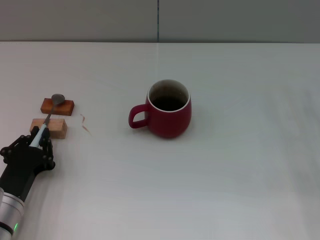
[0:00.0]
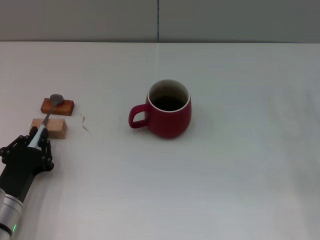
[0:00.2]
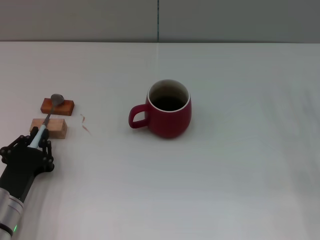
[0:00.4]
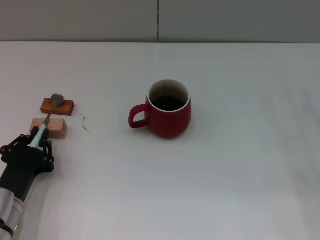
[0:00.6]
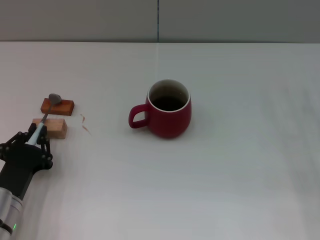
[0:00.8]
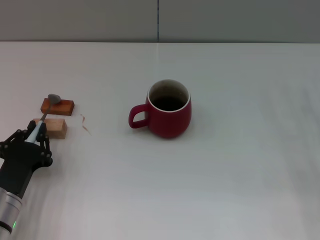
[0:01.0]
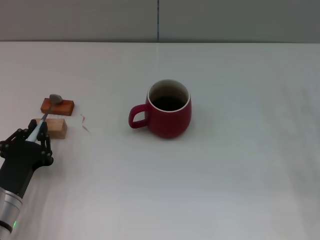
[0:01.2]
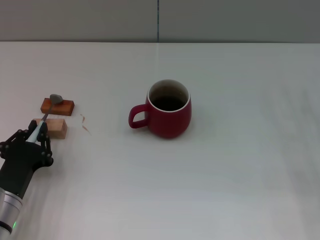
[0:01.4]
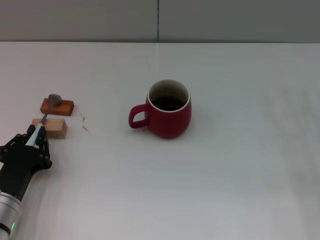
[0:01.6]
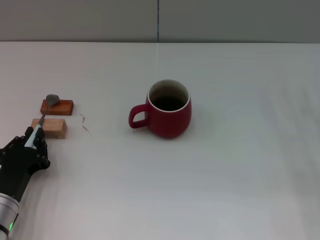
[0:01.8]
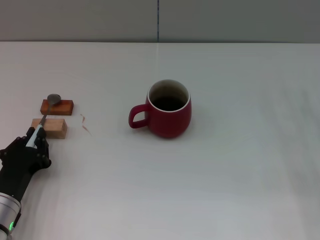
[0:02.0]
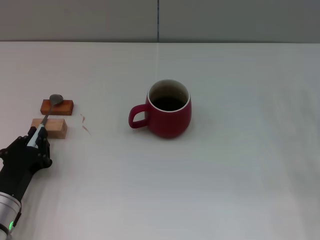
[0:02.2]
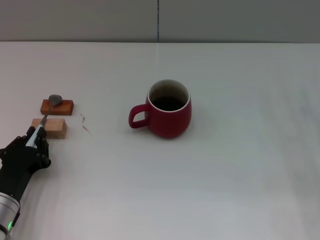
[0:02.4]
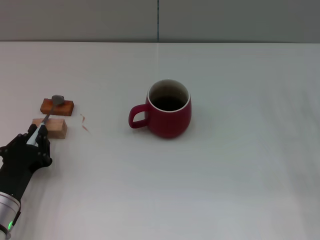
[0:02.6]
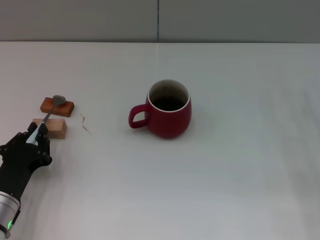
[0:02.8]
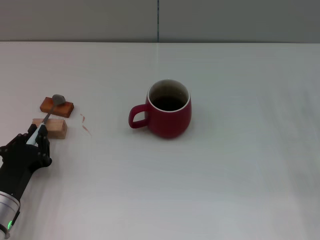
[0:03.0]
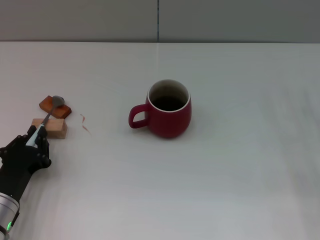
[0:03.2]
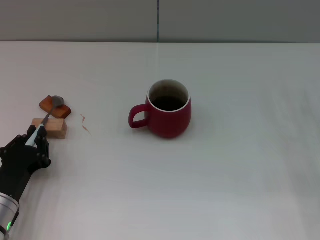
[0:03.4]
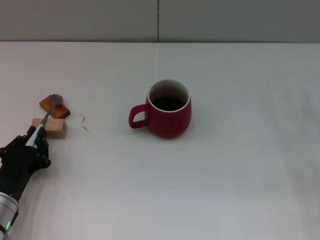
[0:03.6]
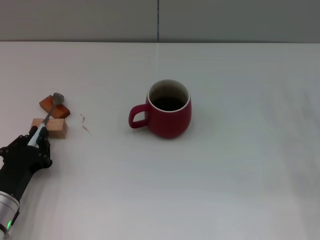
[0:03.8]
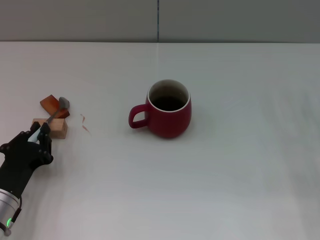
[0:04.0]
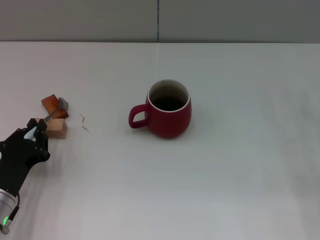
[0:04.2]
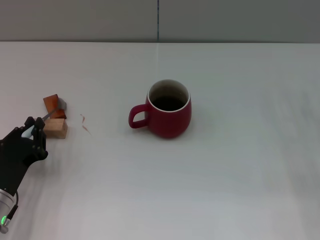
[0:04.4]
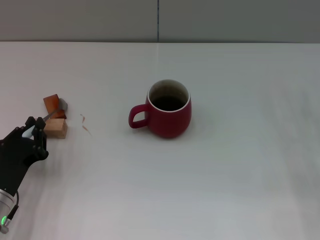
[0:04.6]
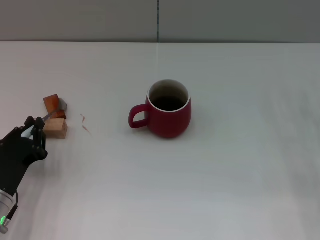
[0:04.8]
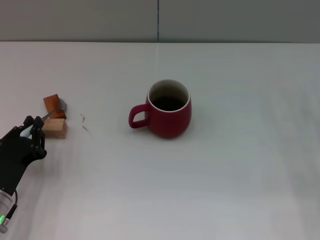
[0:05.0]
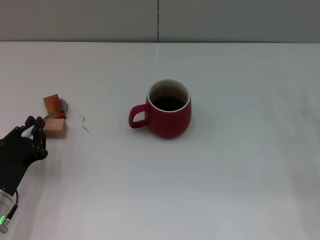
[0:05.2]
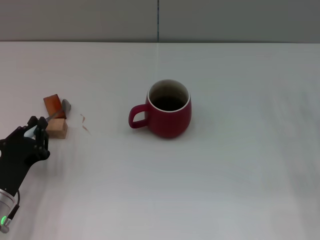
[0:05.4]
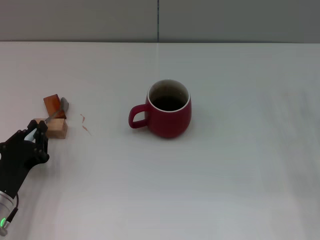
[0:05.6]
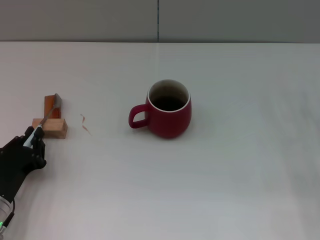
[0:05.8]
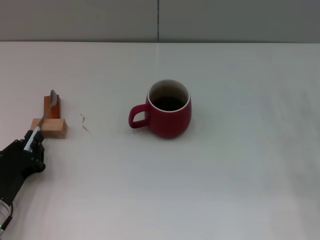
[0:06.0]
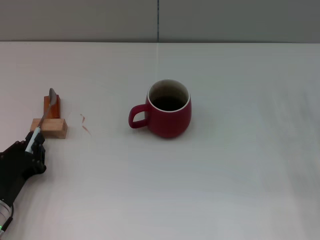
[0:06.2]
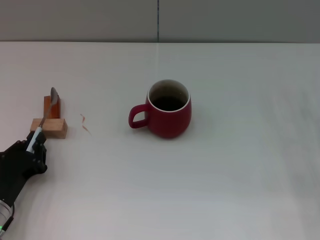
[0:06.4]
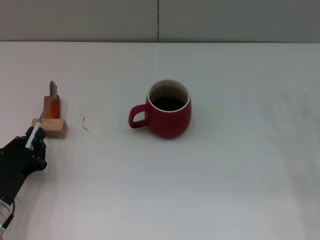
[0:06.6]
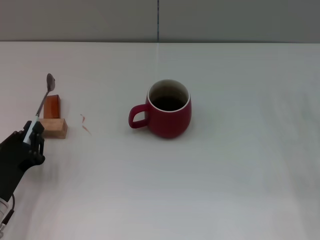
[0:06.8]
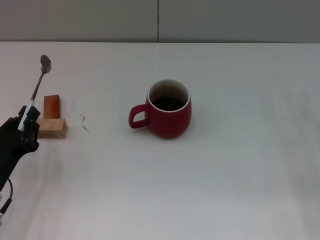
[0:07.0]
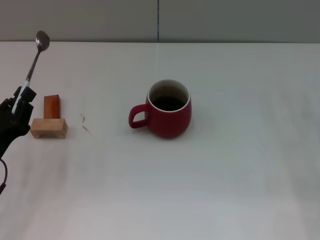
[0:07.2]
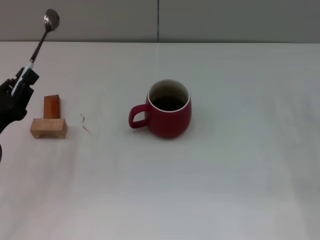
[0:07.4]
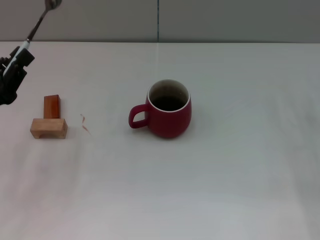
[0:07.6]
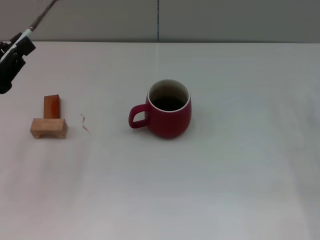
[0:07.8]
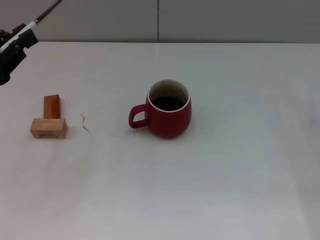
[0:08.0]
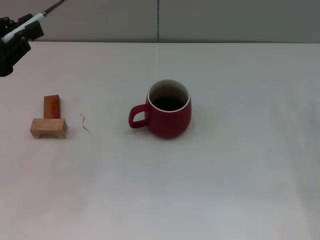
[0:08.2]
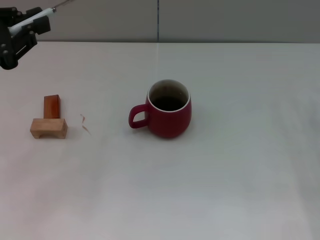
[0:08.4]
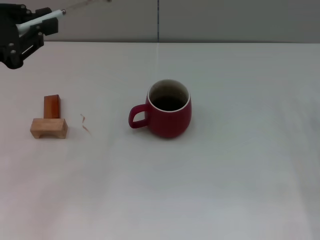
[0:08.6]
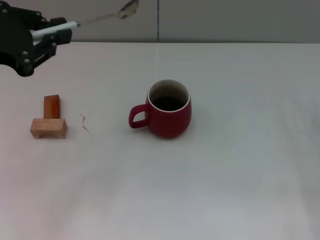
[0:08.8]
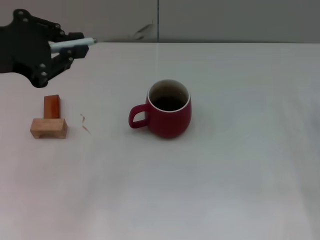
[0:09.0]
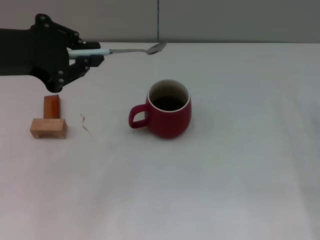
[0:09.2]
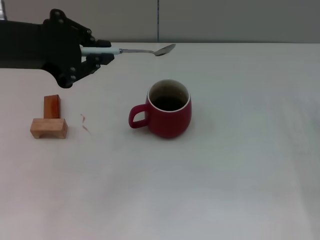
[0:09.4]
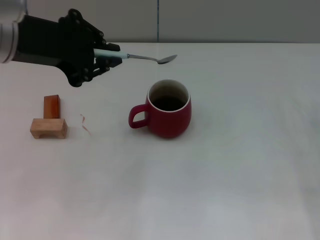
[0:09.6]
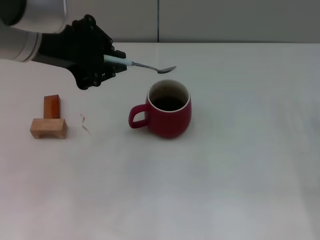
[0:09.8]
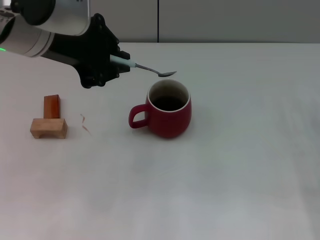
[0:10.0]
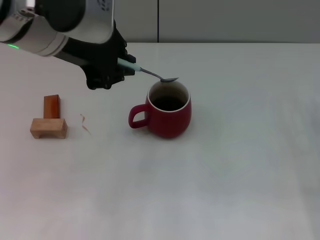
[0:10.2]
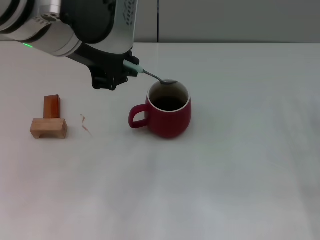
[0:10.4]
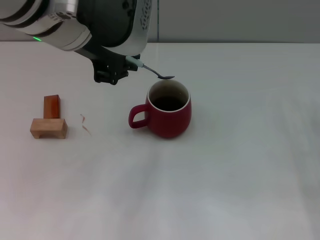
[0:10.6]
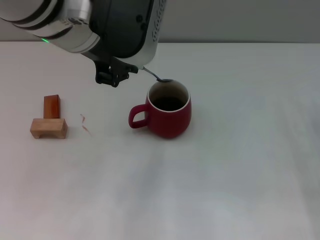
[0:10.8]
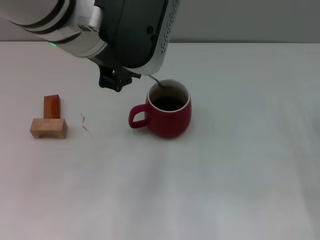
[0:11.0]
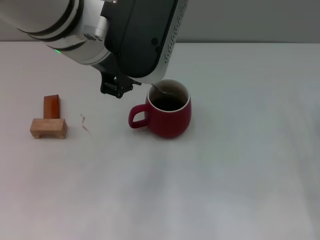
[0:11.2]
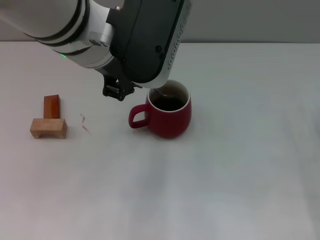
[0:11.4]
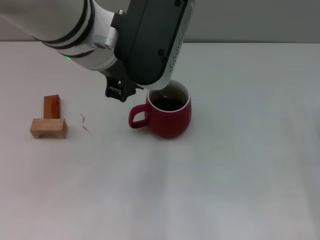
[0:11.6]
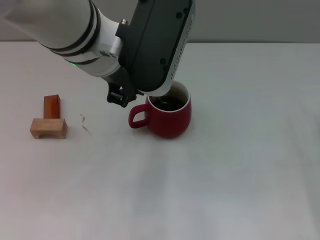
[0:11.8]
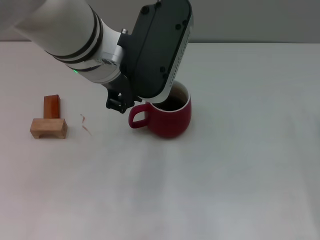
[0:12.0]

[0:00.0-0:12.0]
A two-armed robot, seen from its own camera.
Task of the whole recording: Move the red cup to the center, lift the blue spoon, stir it three times in the cup, and put the spoon into the cup.
Step, 0:00.0 to 0:06.8: Pick up the spoon with the left gripper.
0:00.0 to 0:06.0: The grippers make only small movements.
0:06.0 to 0:07.6: The left gripper heads upward and forward, covering about 10 cm.
0:07.6 to 0:09.0: The left gripper shifts some 15 cm upward.
0:09.0 to 0:10.4: The left gripper goes roughly 15 cm to the right.
0:10.4 to 0:12.0: The left gripper shifts by some 5 cm.

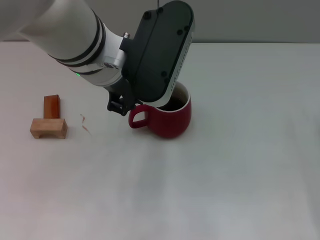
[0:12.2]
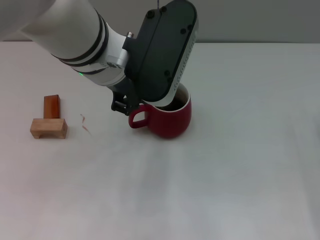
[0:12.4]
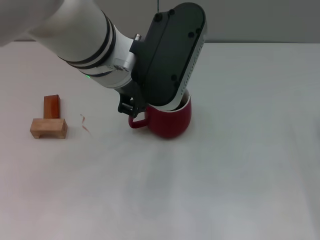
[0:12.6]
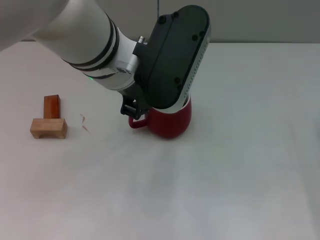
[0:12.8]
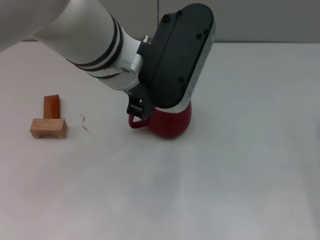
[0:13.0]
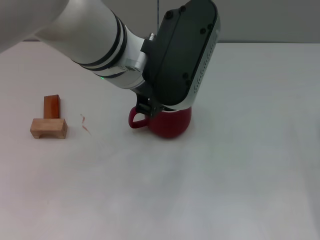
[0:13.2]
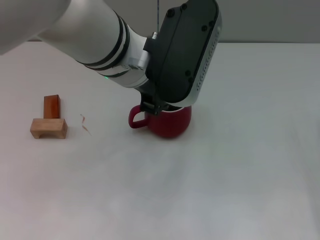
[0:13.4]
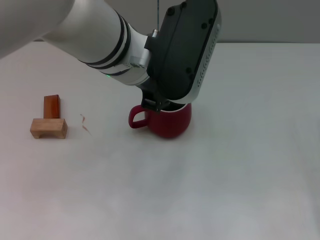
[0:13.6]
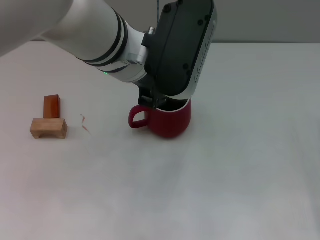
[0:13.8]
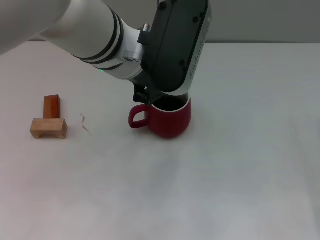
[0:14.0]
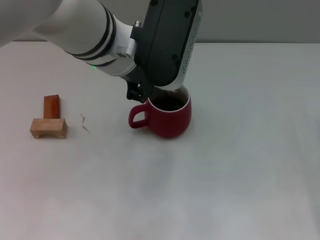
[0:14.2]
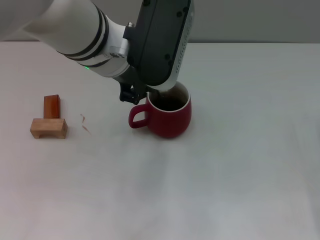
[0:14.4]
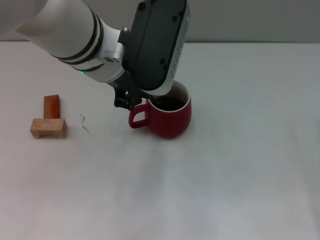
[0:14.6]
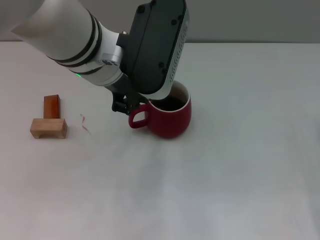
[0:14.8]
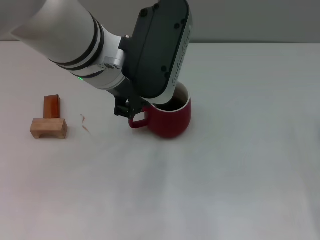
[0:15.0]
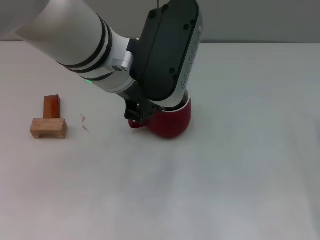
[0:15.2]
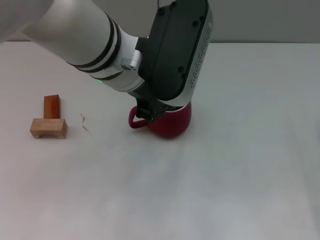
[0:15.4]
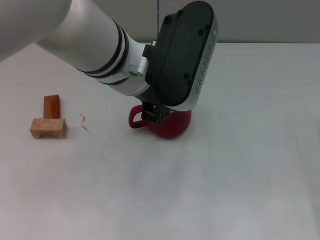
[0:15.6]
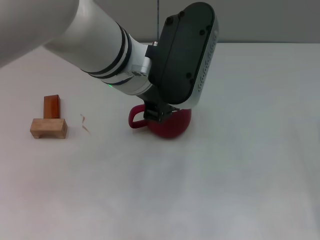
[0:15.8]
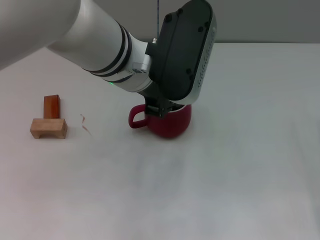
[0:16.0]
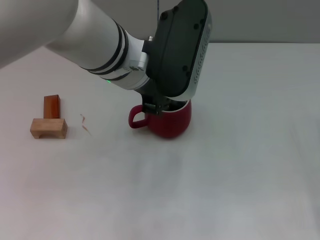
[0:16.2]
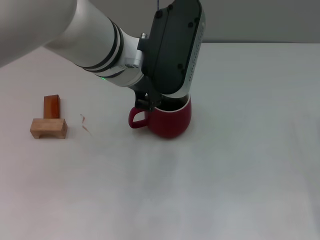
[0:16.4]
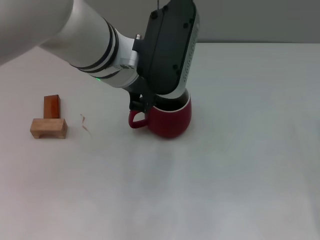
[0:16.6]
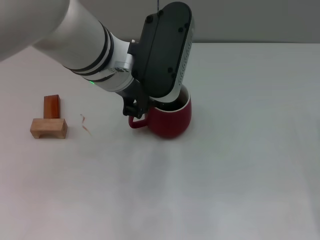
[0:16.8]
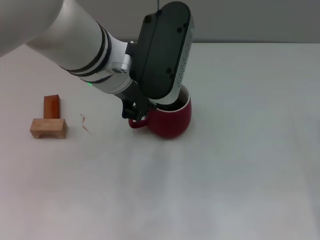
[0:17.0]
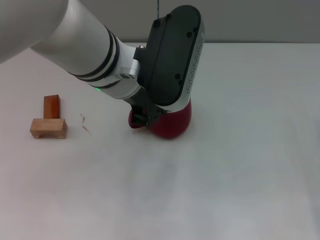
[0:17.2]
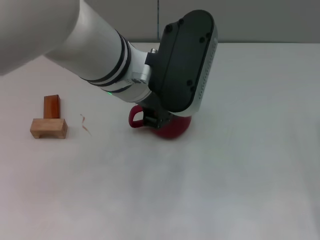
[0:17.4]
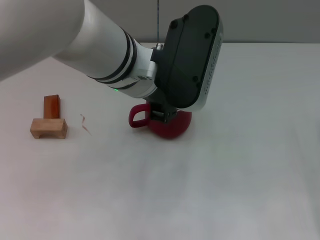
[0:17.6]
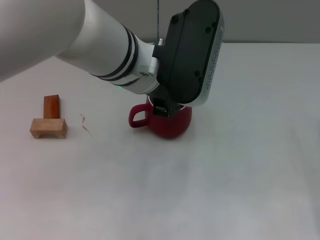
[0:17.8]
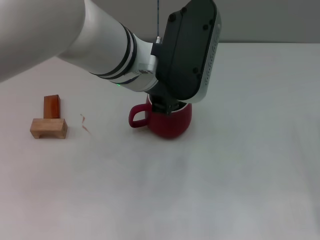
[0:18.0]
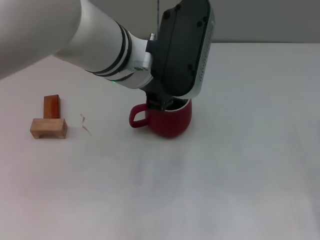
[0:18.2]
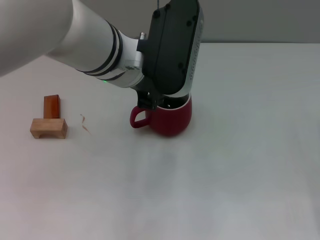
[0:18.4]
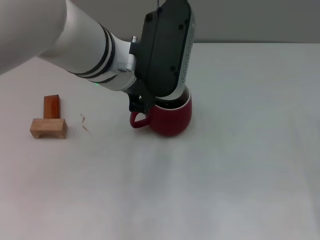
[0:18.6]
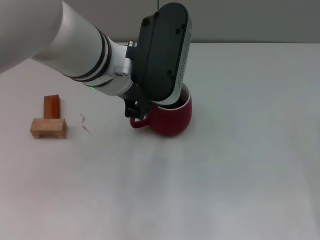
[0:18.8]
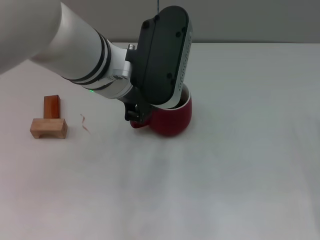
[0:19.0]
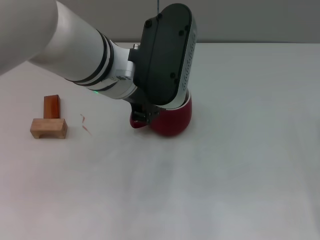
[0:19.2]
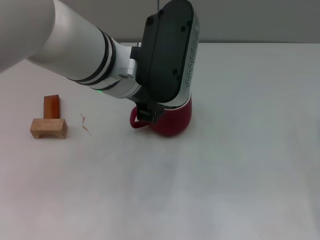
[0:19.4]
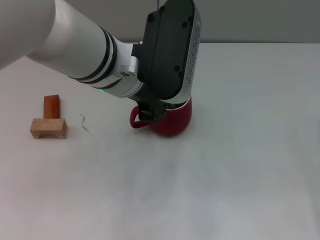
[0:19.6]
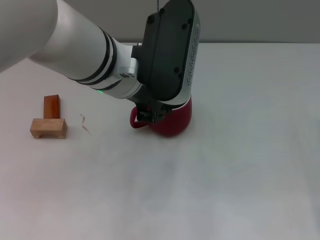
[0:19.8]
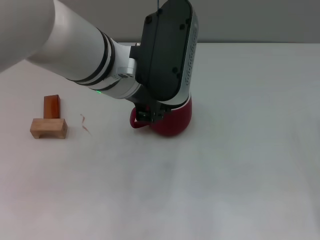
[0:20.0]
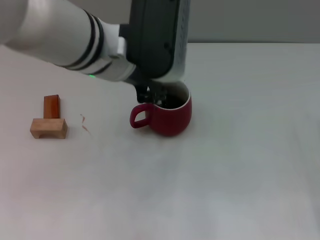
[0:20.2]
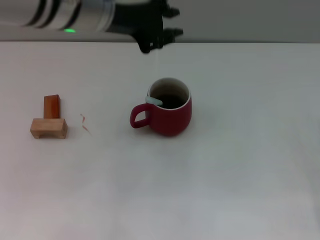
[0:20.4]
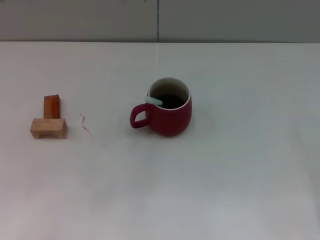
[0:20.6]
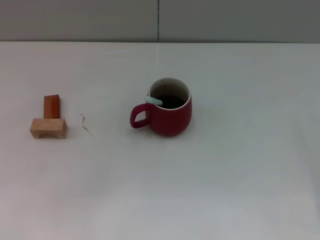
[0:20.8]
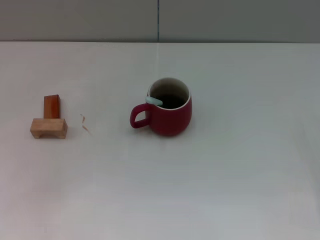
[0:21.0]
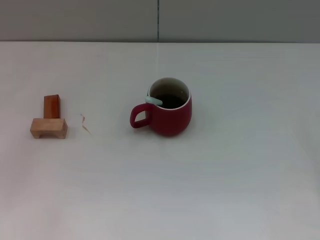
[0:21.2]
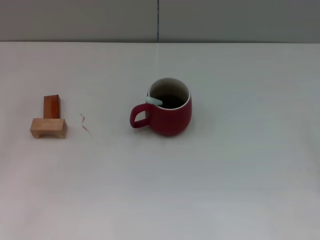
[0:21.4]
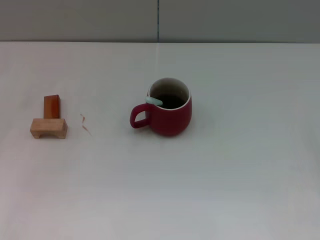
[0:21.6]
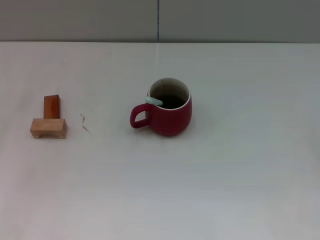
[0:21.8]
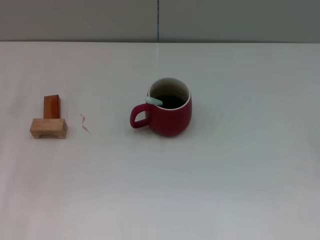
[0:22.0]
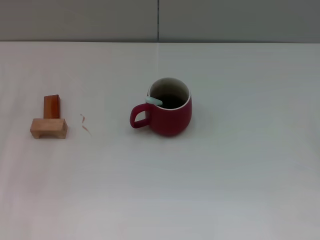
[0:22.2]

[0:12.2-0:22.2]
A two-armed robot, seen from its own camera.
Task of the whole recording: Move the red cup to the center, lift the blue spoon, stir it three times in the cup, and put the spoon into the cup.
Step, 0:12.2 to 0:20.2: Stir the coffee in the cup with the left gripper.
0:12.2 to 0:19.4: The grippers make only small movements.
0:19.4 to 0:20.8: The left gripper heads to the left and upward, covering some 20 cm.
